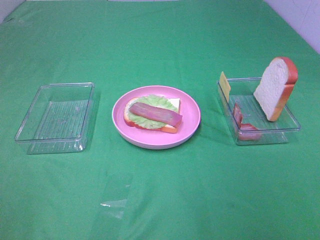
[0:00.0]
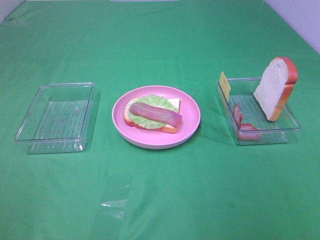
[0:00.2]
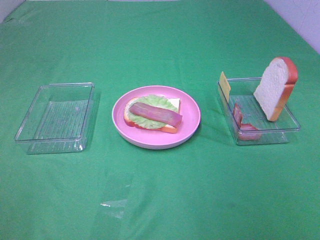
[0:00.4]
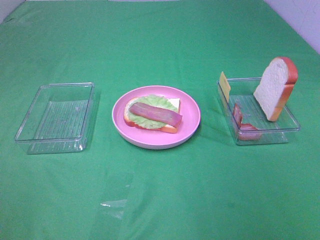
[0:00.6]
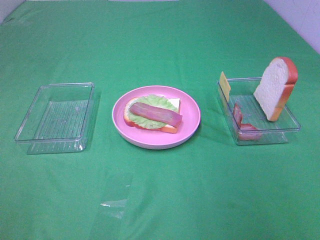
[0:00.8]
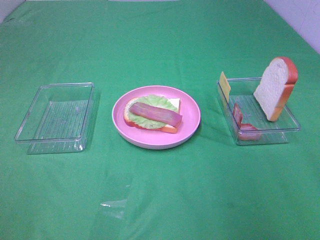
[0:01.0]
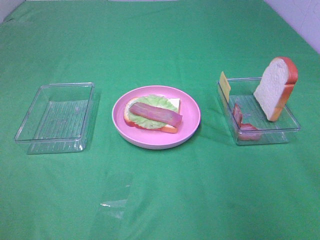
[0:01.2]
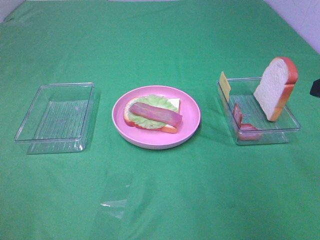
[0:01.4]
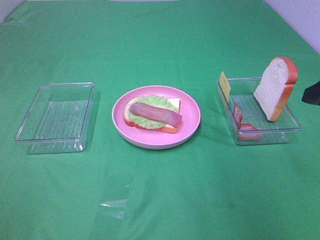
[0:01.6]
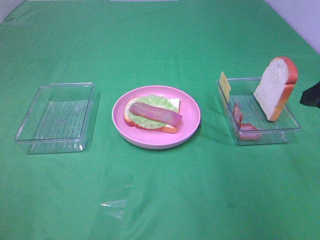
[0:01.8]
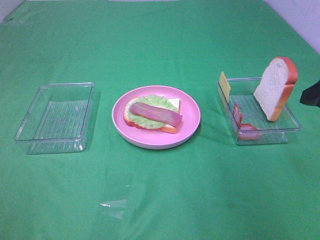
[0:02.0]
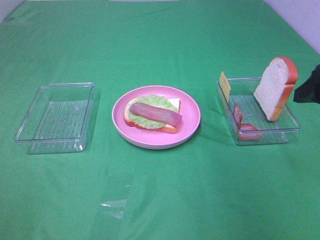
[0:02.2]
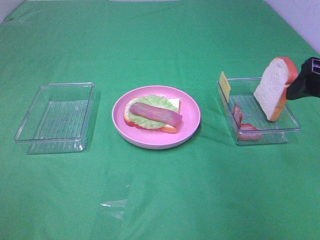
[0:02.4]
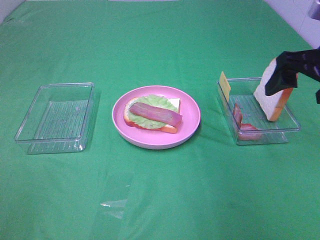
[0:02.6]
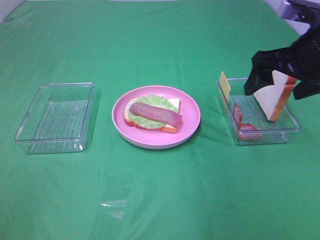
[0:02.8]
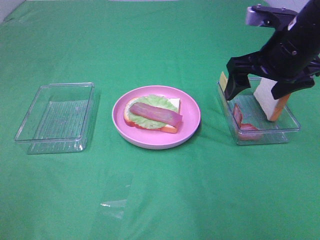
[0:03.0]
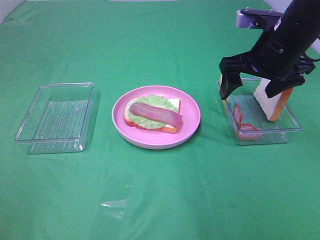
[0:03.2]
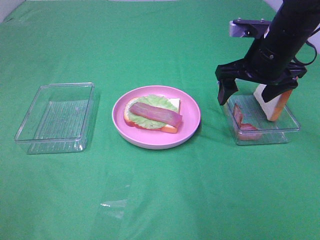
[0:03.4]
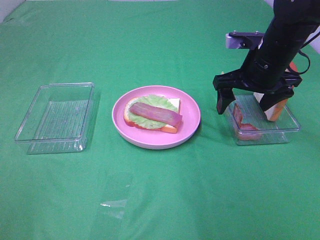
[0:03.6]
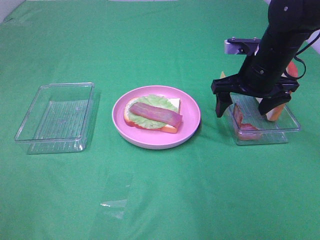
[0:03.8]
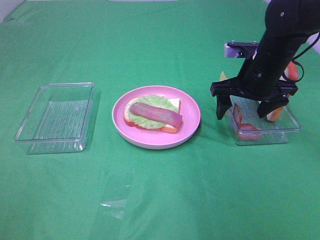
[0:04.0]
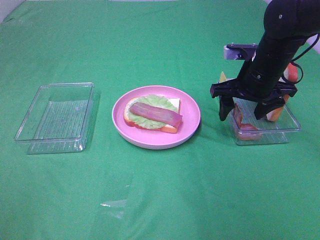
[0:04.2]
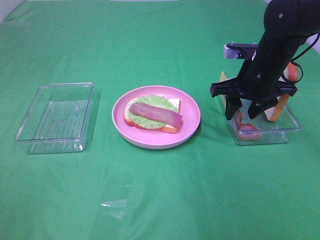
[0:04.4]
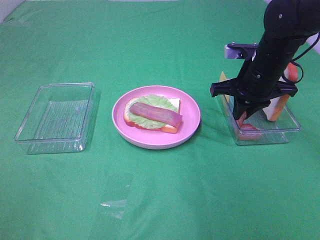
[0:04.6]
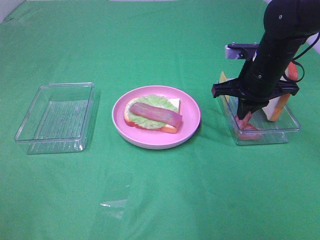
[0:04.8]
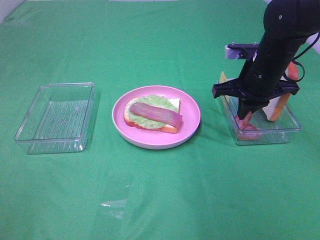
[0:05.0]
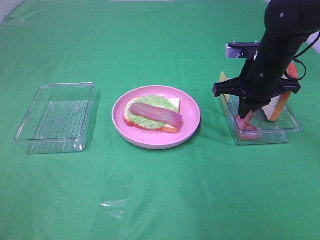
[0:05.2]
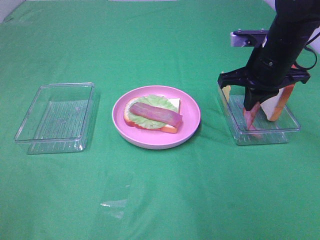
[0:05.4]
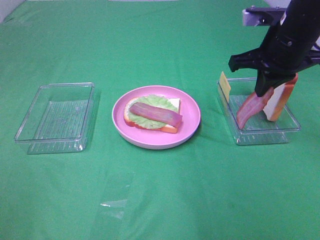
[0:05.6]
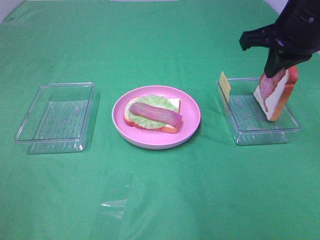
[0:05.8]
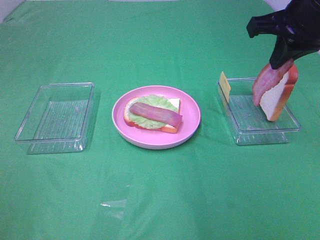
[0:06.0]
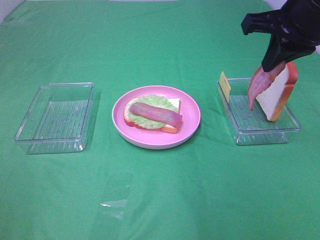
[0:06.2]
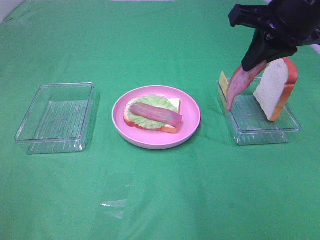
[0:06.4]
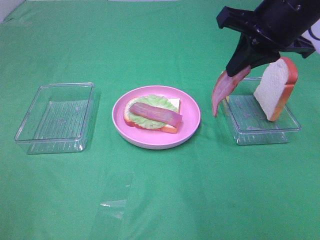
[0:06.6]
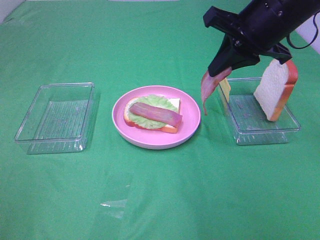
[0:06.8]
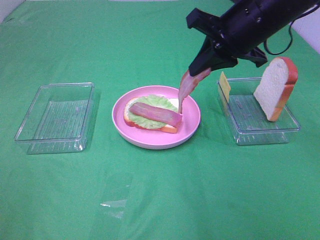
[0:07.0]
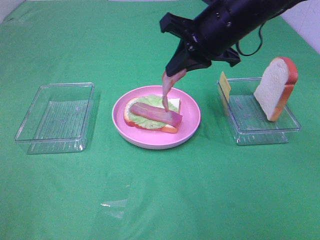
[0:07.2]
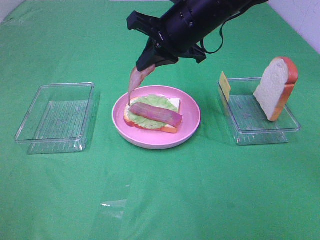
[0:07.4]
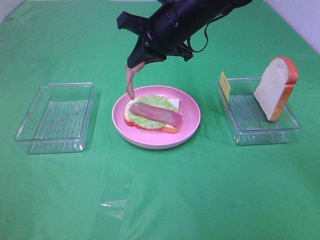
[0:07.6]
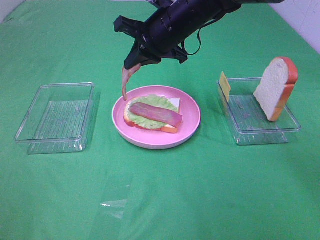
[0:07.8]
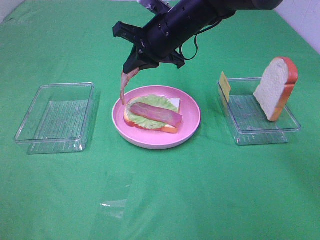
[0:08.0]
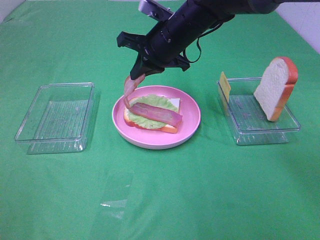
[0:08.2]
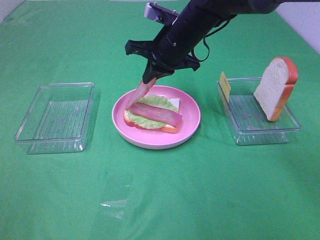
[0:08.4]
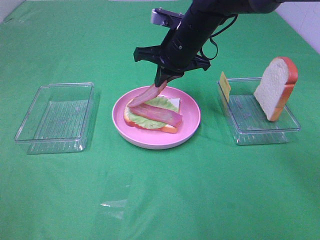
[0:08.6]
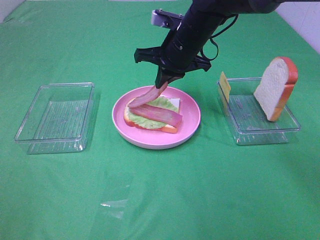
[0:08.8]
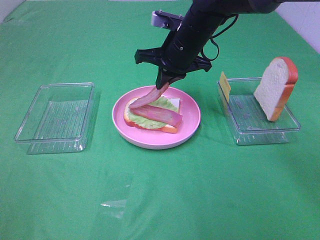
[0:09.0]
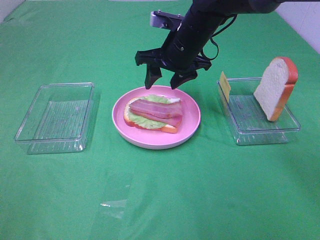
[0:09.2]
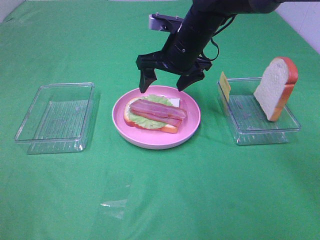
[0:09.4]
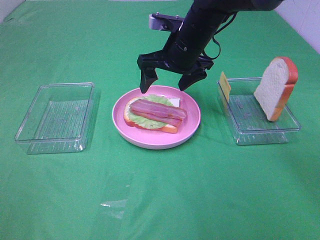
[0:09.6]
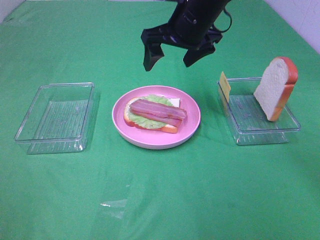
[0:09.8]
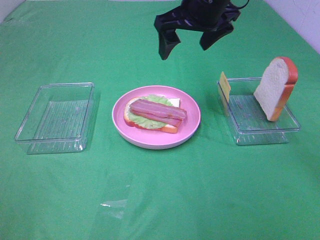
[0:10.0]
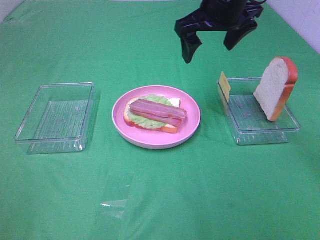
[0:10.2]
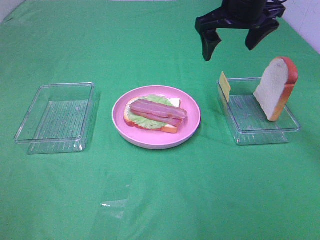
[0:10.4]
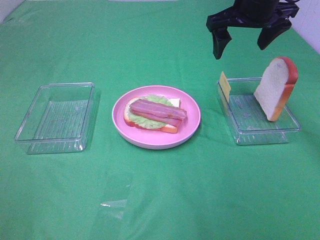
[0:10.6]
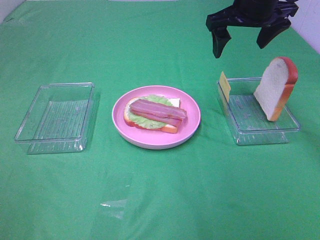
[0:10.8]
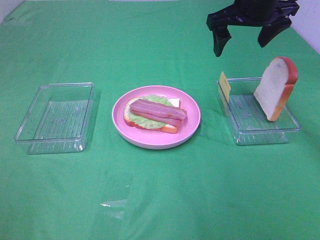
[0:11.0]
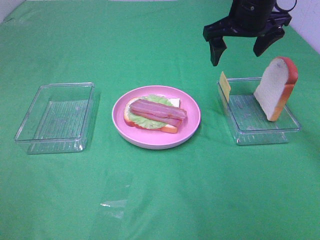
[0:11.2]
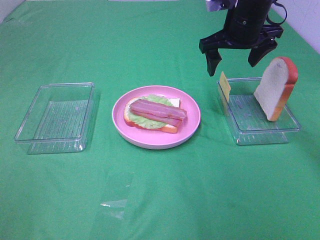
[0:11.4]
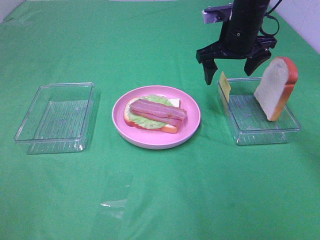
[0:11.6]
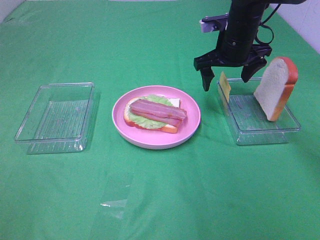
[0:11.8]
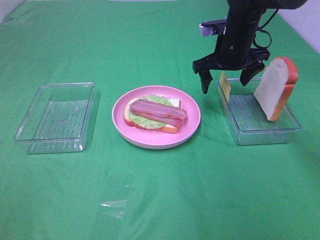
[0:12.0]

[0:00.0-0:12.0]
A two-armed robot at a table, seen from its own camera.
Task of the whole recording: Make sandwiches.
Step, 0:00.0 to 0:04.8: Right hand:grab the bacon.
Step, 0:05.0 to 0:09.2: Right hand:place bacon on lettuce slice.
0:01.6 to 0:03.0: The right gripper goes about 15 cm forward and to the left.
0:03.0 to 0:04.4: The right gripper goes approximately 5 cm downward, and closes its fingers.
0:04.4 to 0:06.0: The right gripper moves upward and backward, some 15 cm, and closes its fingers.
0:06.0 to 0:07.6: The right gripper moves to the left, forward and downward, about 20 cm.
0:07.6 to 0:09.0: The right gripper moves some 5 cm.
0:09.0 to 0:10.4: The right gripper travels upward and to the right by about 15 cm, and opens its fingers.
0:10.4 to 0:12.0: The right gripper travels downward by approximately 10 cm.

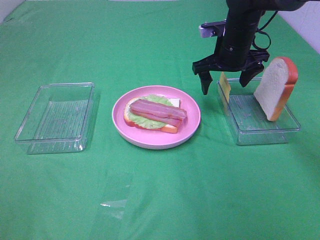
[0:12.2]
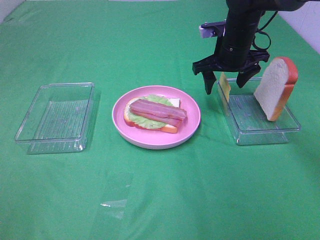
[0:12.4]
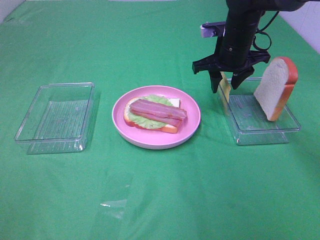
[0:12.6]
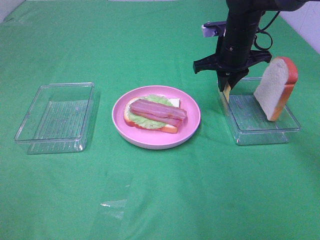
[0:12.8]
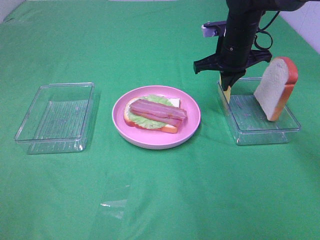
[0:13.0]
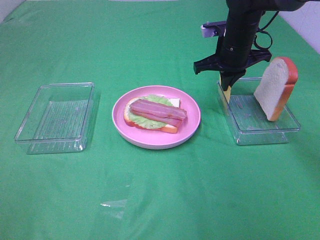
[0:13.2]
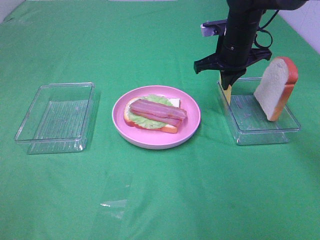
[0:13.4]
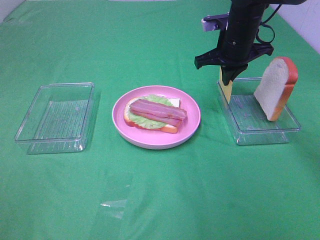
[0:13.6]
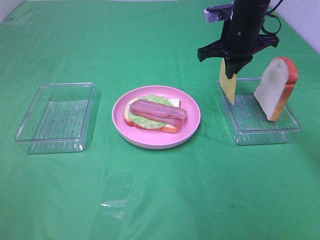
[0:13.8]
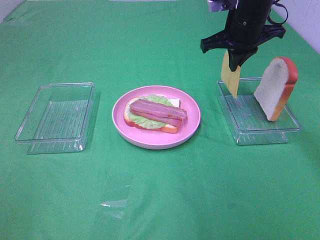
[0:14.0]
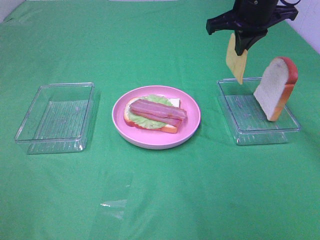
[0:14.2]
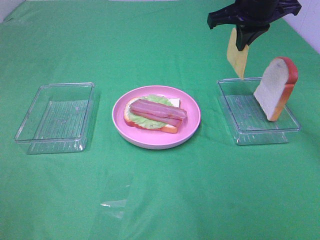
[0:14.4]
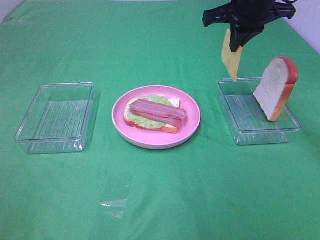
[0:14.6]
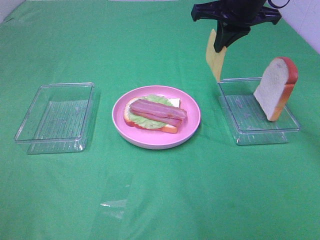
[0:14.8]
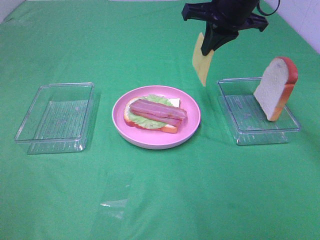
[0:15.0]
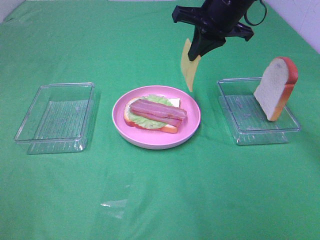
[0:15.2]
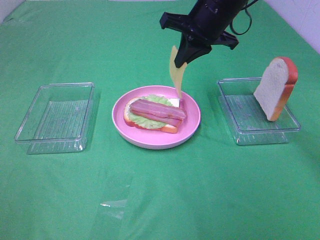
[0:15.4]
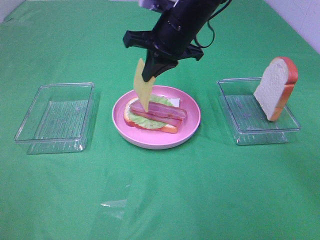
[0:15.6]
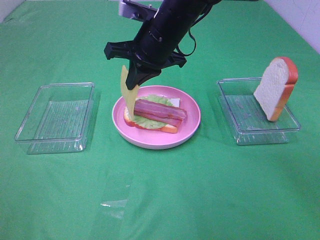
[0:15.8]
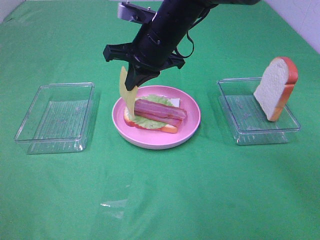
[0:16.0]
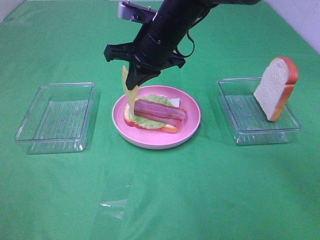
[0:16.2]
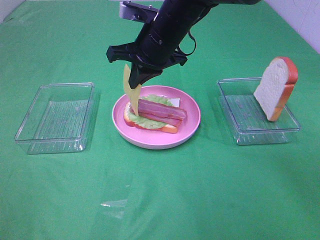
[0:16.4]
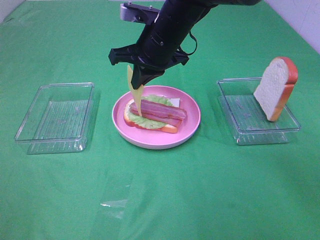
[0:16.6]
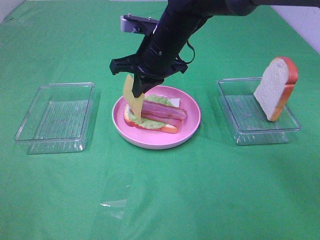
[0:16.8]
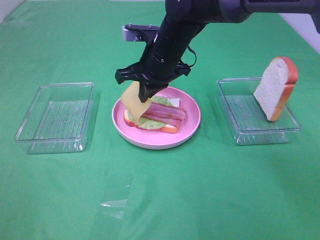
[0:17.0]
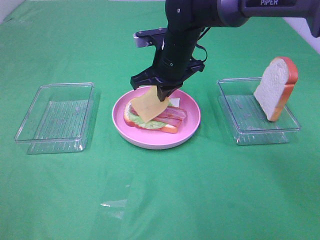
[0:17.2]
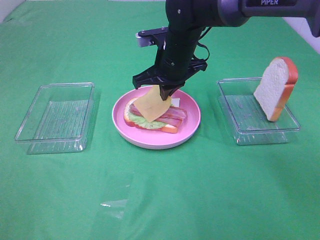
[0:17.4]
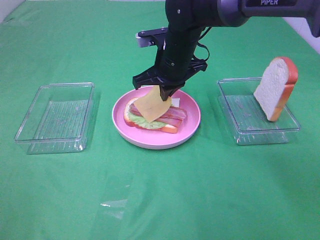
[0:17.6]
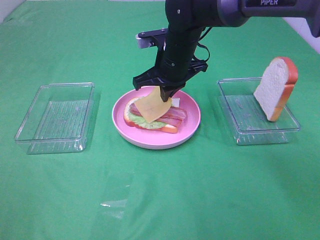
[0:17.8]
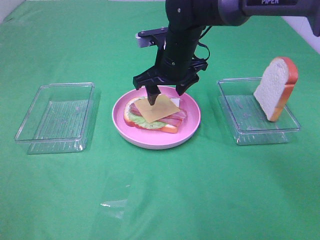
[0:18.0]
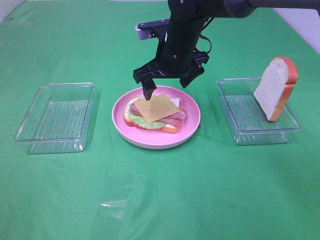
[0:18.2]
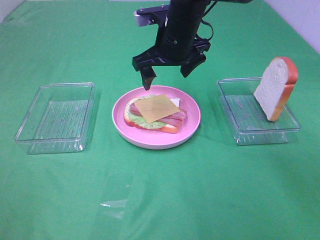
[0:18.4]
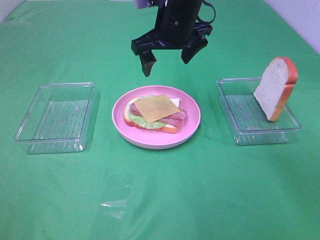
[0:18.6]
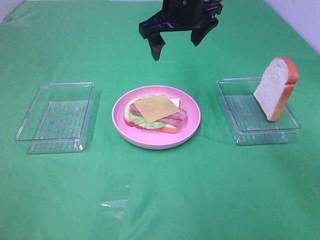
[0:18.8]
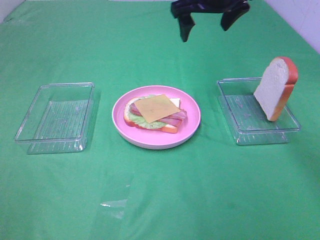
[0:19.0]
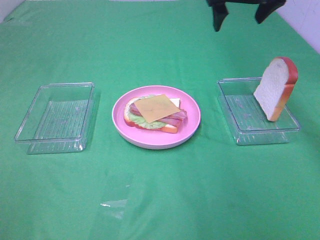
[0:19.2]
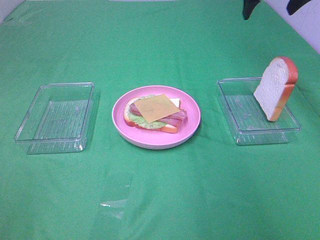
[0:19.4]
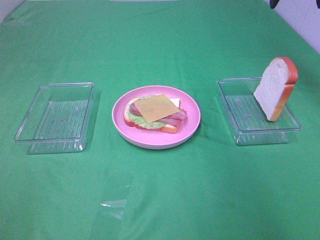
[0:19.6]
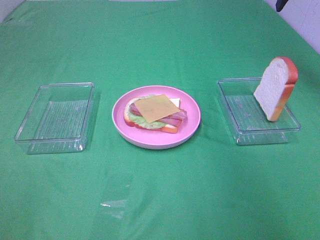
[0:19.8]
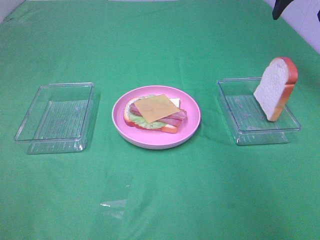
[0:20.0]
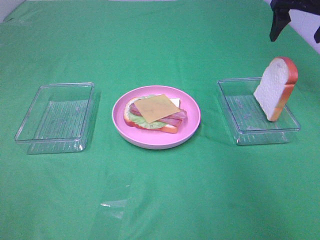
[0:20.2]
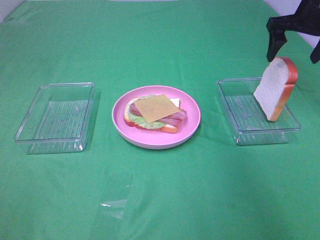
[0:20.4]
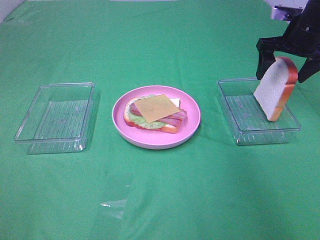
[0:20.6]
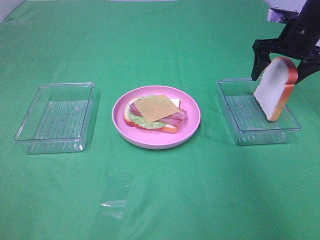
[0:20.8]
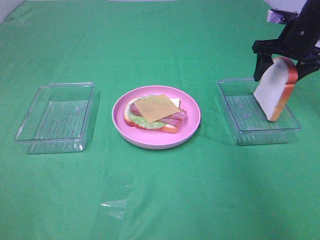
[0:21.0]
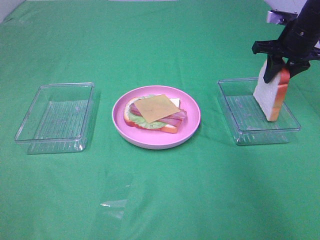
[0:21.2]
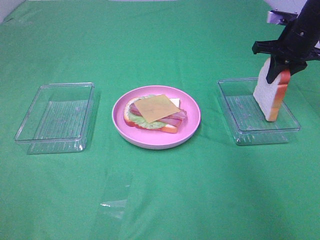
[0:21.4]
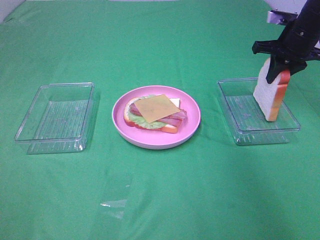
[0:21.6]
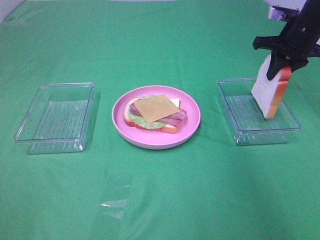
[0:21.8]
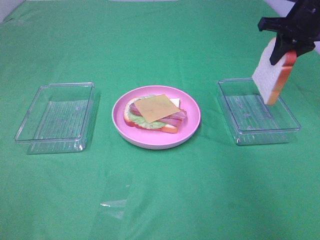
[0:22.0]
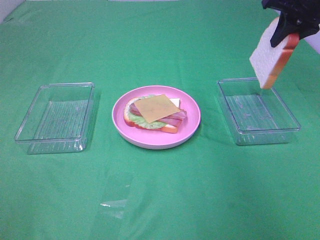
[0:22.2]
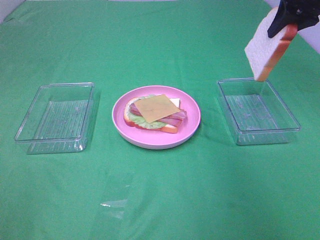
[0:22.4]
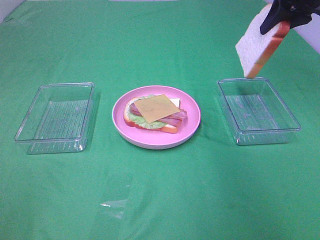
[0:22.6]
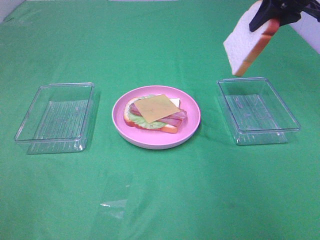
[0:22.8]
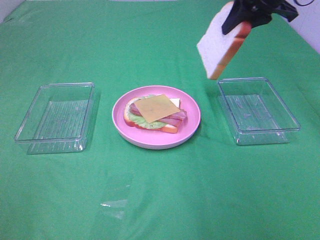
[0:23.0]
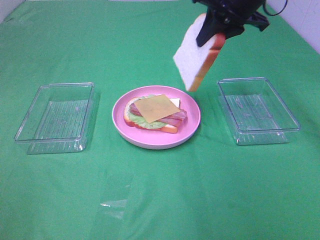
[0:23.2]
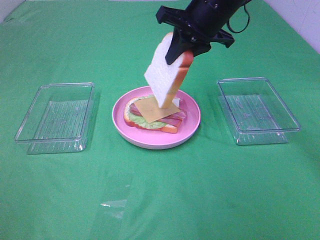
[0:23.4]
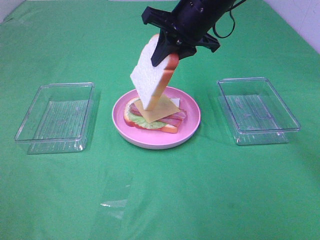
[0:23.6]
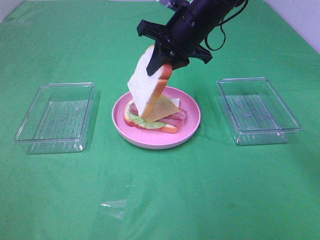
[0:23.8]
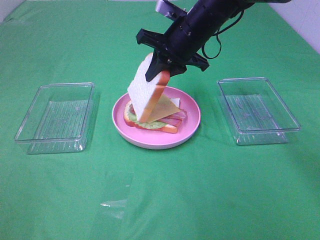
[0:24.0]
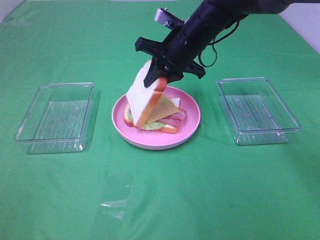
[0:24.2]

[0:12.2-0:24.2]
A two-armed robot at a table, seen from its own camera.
Task of the whole recording: Make sandwiches.
Step, 0:13.8 to 0:18.4: Right hand:place the cheese slice on top of the bacon.
Step, 0:18.6 to 0:21.6: Right hand:grab the bread slice.
0:12.2 to 0:13.8: The right gripper closes up.
0:13.8 to 0:15.2: The right gripper travels upward by roughly 5 cm.
0:15.2 to 0:16.6: The right gripper shifts some 10 cm to the left and downward.
0:16.6 to 0:18.2: The right gripper opens.
0:18.2 to 0:19.8: The right gripper heads to the right and upward, covering about 30 cm.
0:19.8 to 0:21.2: The right gripper moves downward, approximately 15 cm, and closes its fingers.
0:21.2 to 0:22.6: The right gripper goes roughly 10 cm upward.
0:22.6 to 0:24.2: The right gripper shifts roughly 25 cm to the left and downward.
